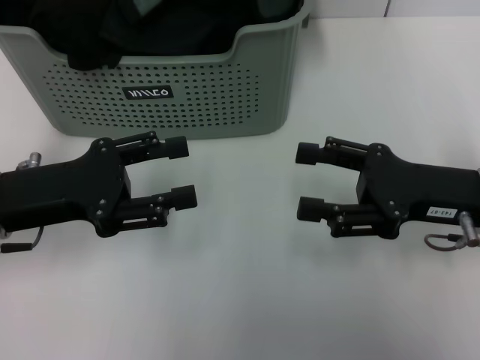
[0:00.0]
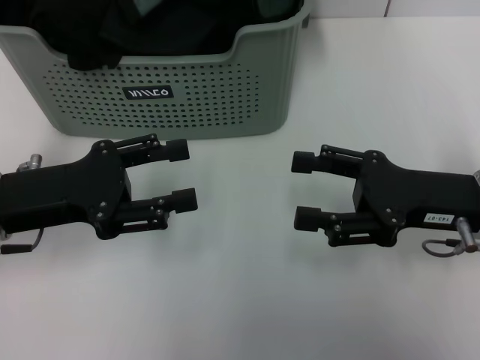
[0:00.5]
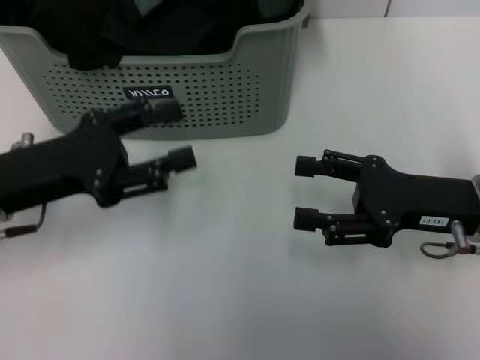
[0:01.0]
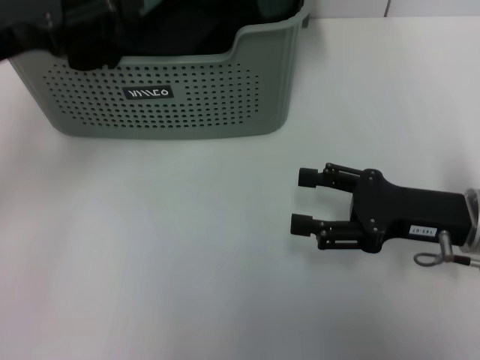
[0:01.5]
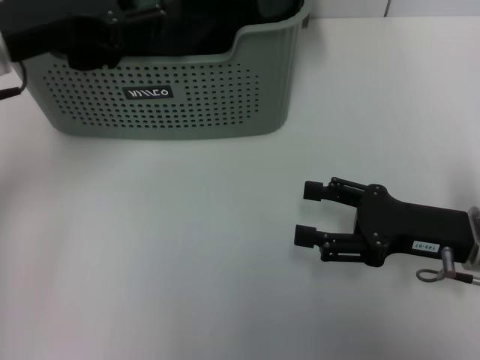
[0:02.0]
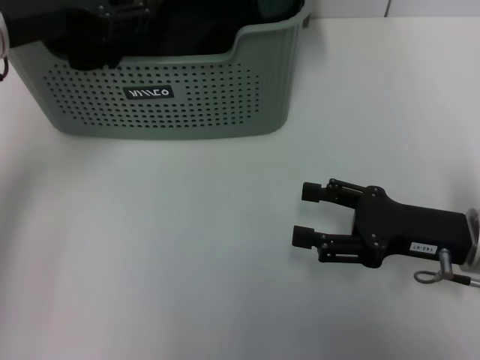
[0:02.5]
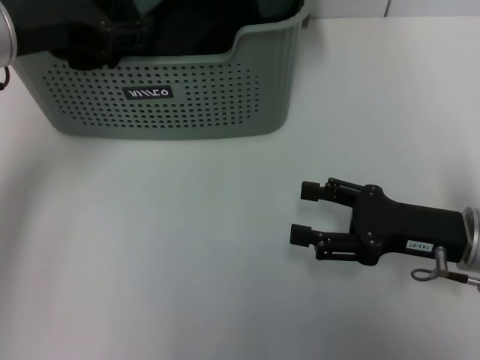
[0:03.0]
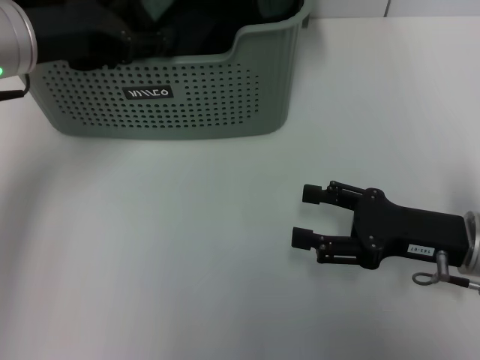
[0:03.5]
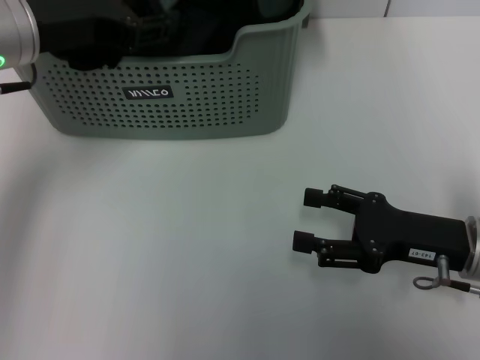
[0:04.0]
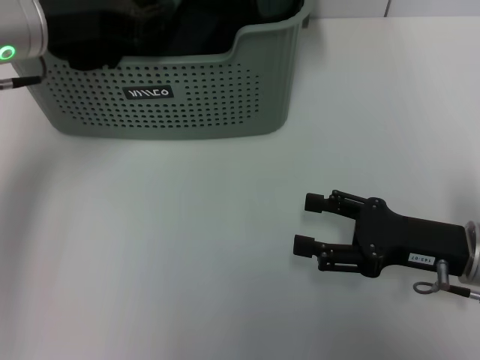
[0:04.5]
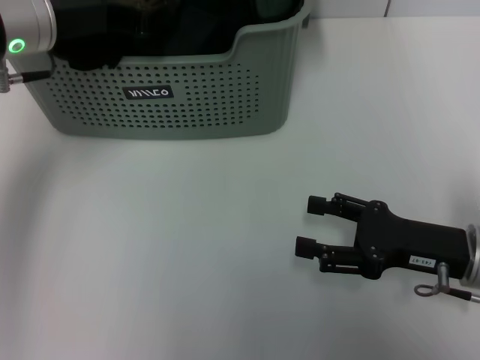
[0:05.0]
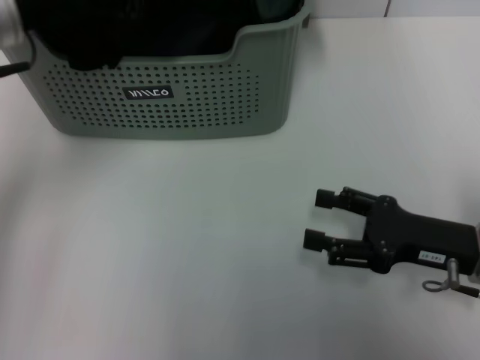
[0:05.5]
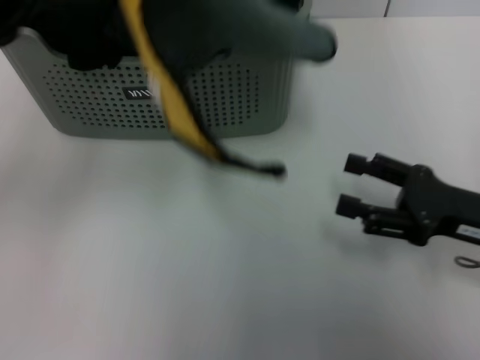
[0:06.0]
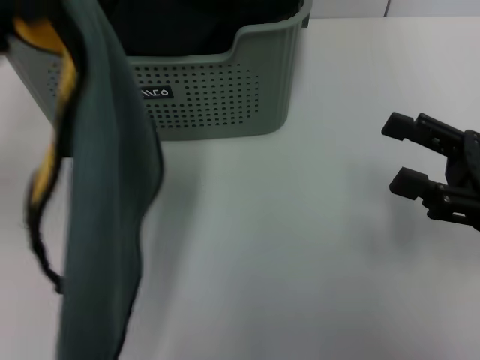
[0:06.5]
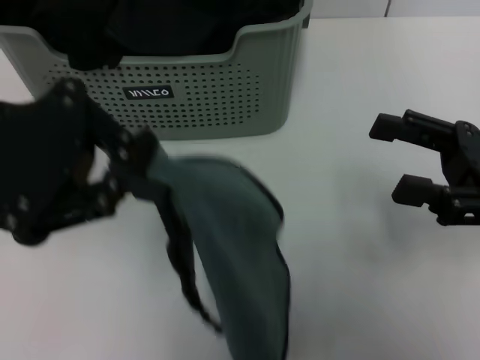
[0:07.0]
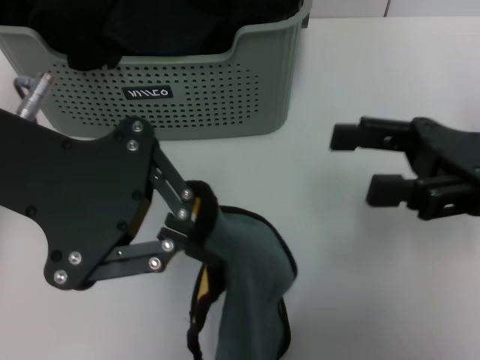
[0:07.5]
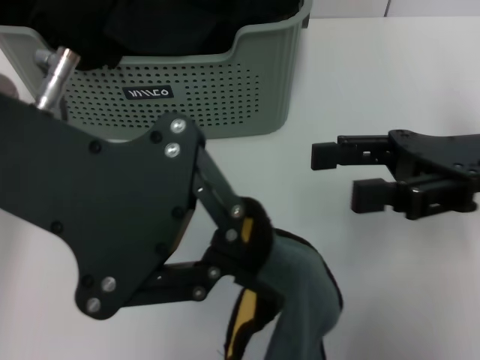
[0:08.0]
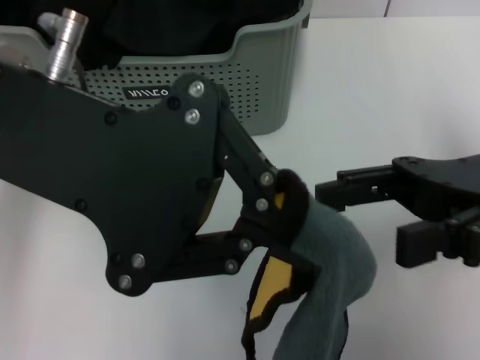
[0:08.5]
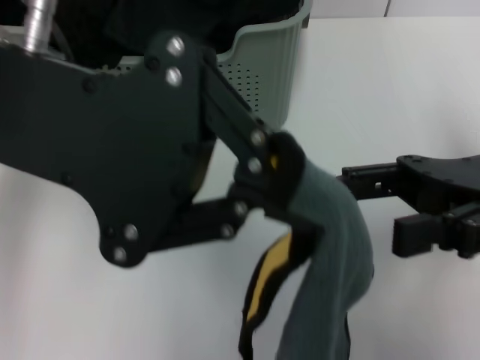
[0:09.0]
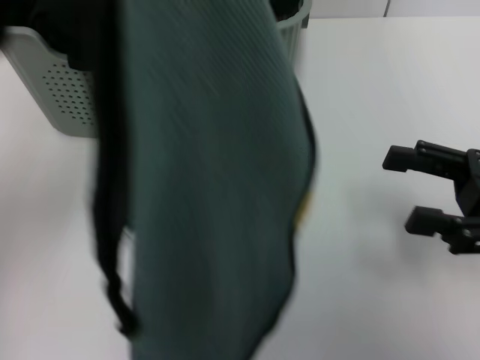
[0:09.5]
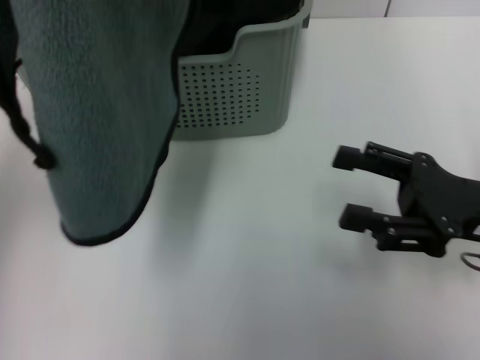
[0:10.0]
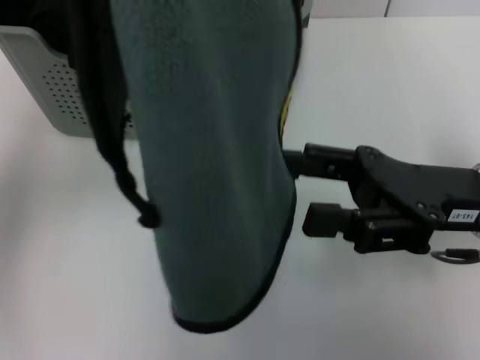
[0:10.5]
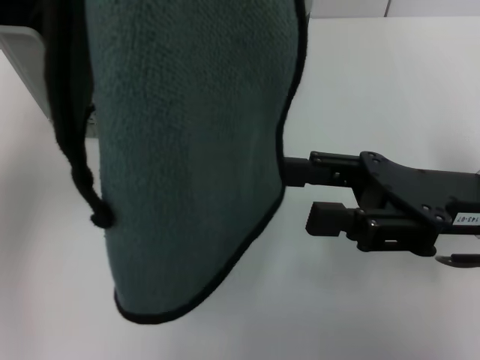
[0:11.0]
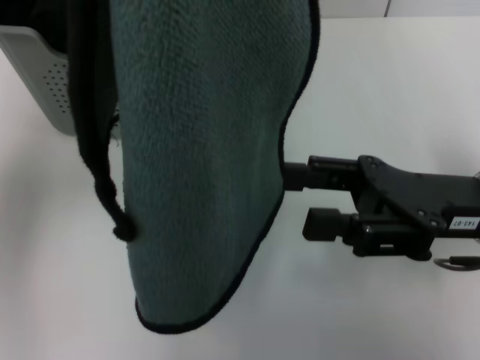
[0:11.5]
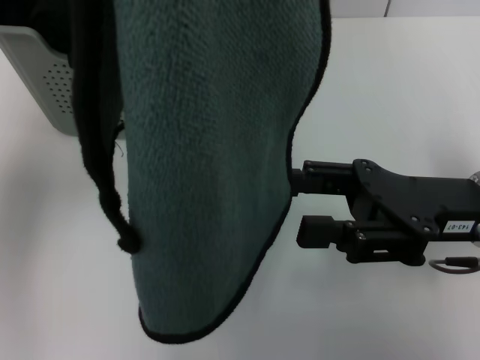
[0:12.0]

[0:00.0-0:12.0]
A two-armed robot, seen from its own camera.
Task of the whole recording: pick up the towel from the storage box and lay it flat on the table.
Step, 0:00.0 to 0:05.0: Pick up a towel with the left gripper.
0:00.0 to 0:02.0: The left gripper travels upward and forward by approximately 10 cm.
0:02.0 to 0:04.0: The grippers stay close to where they were, moving slightly.
0:04.0 to 0:06.0: The left gripper is displaced backward and to the left by approximately 10 cm, and closes.
0:06.0 to 0:08.0: The left gripper heads to the right, covering roughly 10 cm, while the right gripper moves upward, approximately 10 cm.
0:08.0 to 0:10.0: The left gripper goes some 5 cm to the left, while the right gripper is displaced downward by about 5 cm.
0:10.0 to 0:12.0: The right gripper changes place by some 5 cm.

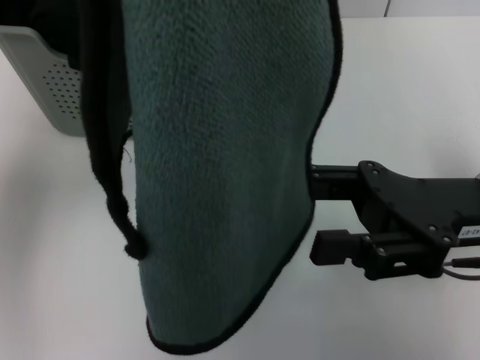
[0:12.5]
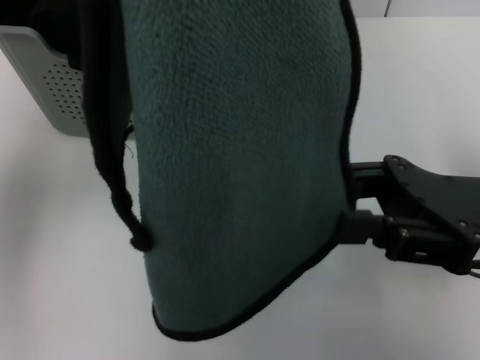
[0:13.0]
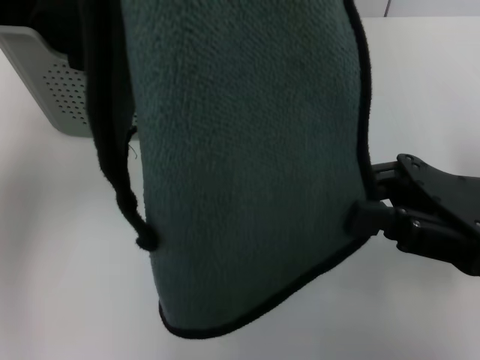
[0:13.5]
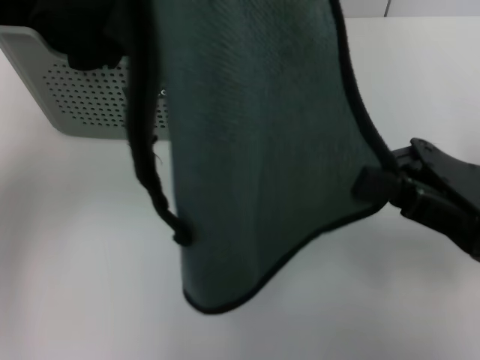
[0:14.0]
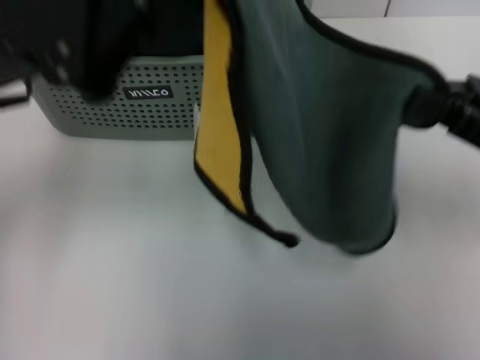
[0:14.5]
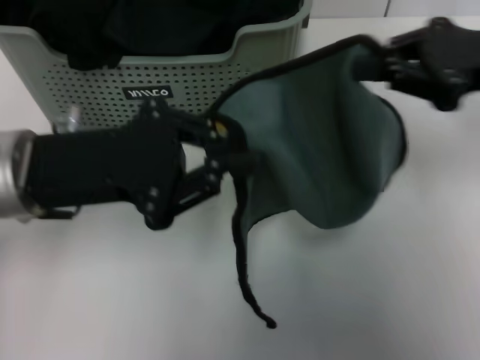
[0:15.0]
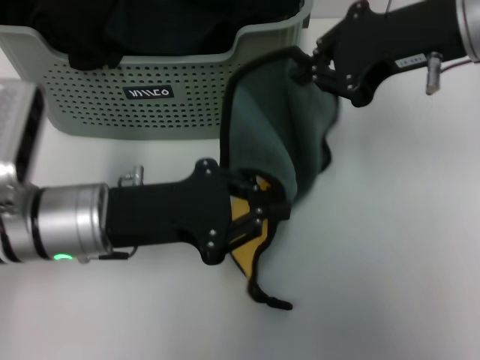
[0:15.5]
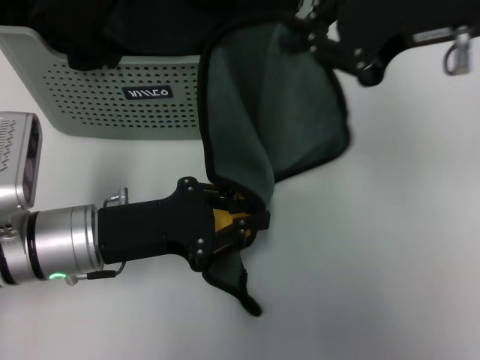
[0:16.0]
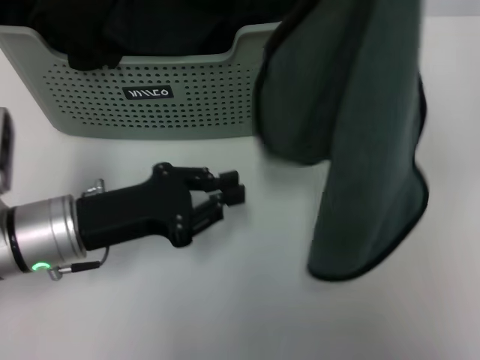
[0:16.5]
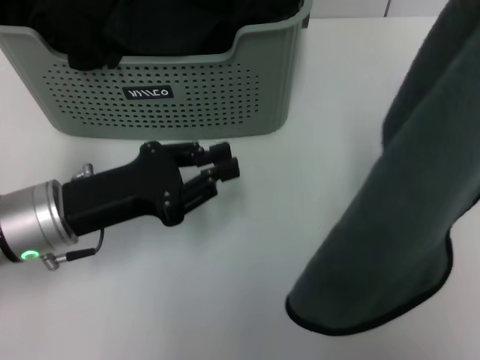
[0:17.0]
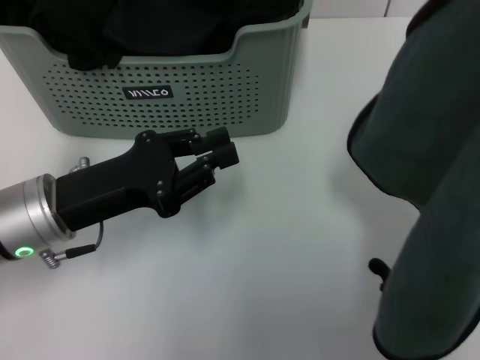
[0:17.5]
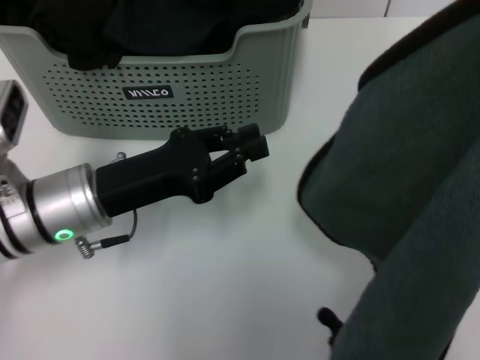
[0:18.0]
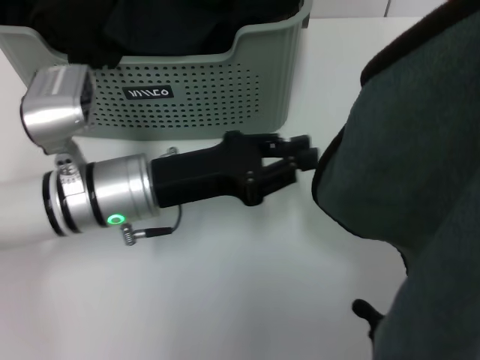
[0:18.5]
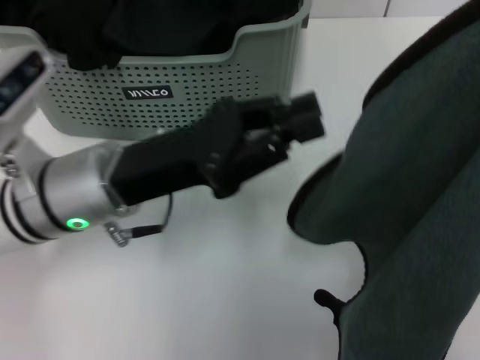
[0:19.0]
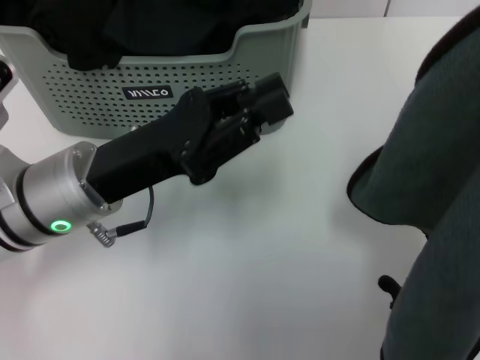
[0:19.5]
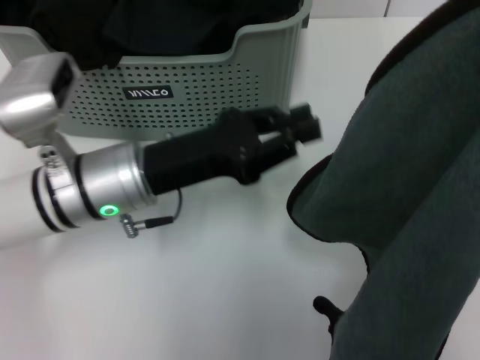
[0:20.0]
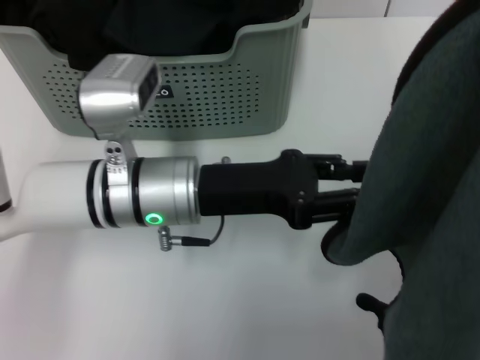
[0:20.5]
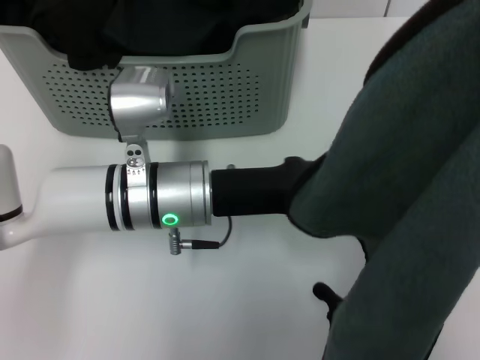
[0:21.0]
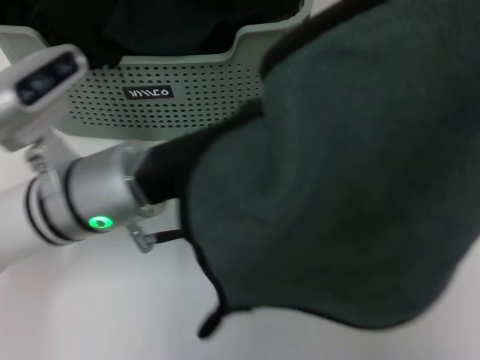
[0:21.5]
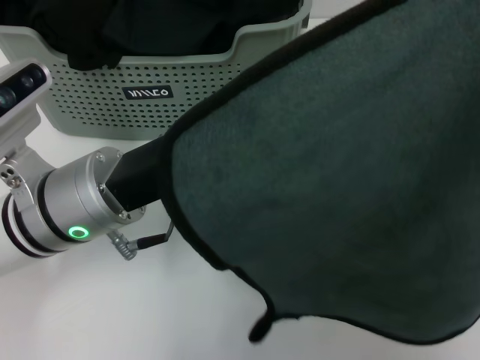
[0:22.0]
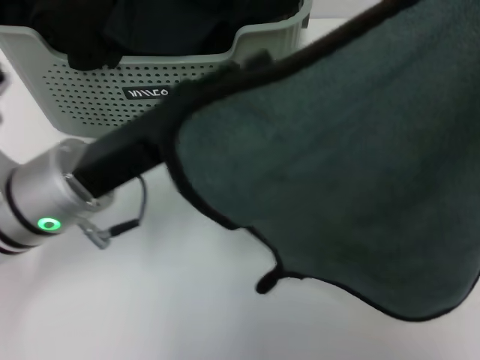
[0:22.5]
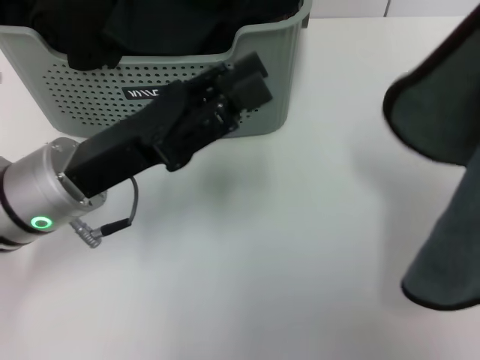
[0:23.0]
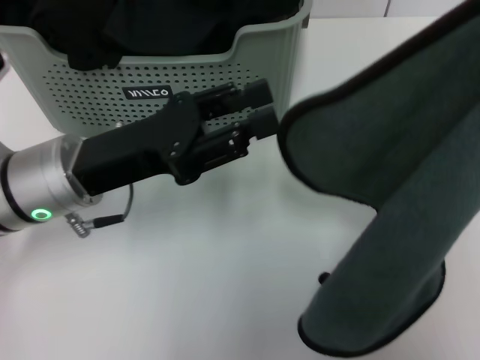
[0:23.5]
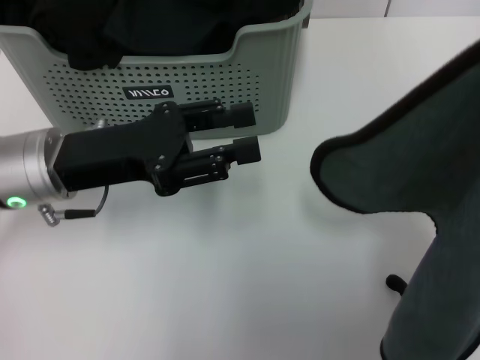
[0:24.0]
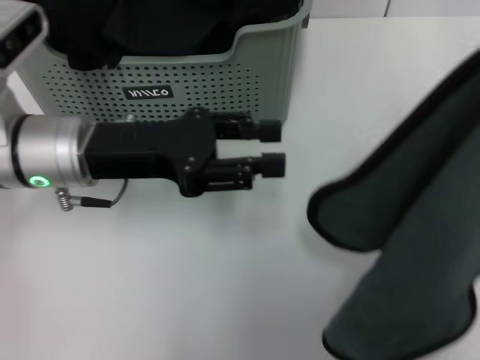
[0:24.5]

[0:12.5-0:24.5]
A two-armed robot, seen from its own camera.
Task of the whole recording: pick up the towel from the storage box and lay it flat on the table.
0:12.5 to 0:14.5: The right gripper moves to the right, approximately 5 cm, and closes. Meanwhile the left gripper goes approximately 5 cm downward.
0:14.5 to 0:16.5: The left gripper goes approximately 15 cm downward. The right gripper shifts about 20 cm upward.
0:16.5 to 0:18.5: The left gripper moves to the right, some 5 cm.
0:20.5 to 0:22.5: The left gripper travels to the left by about 5 cm. Meanwhile the right gripper moves to the right, about 5 cm.
0:22.5 to 0:24.5: The left gripper changes place by approximately 5 cm. Meanwhile the right gripper shifts approximately 10 cm upward and to the left.

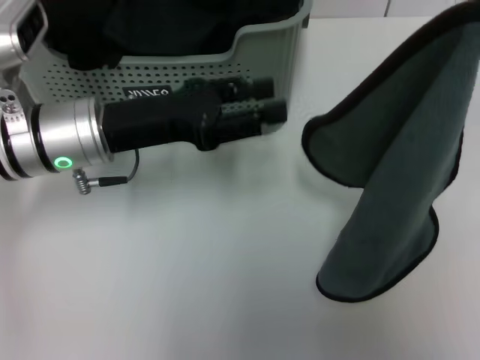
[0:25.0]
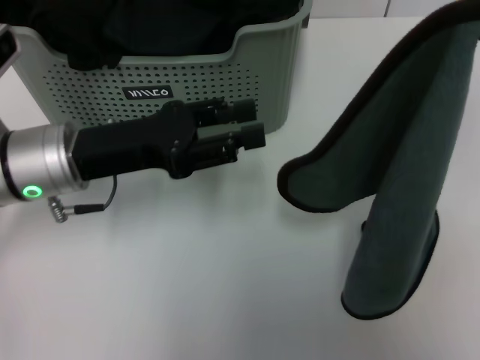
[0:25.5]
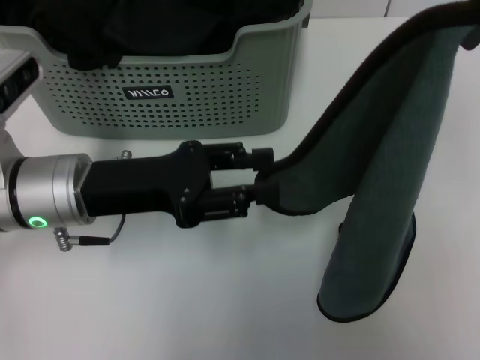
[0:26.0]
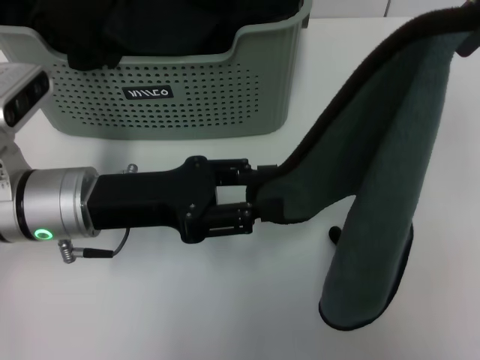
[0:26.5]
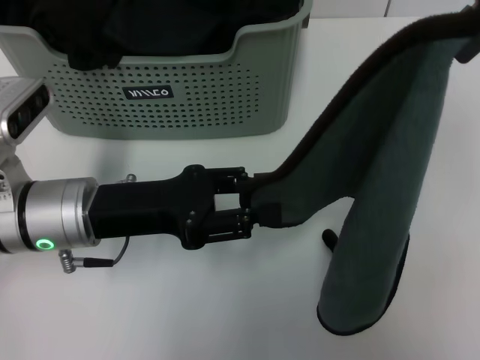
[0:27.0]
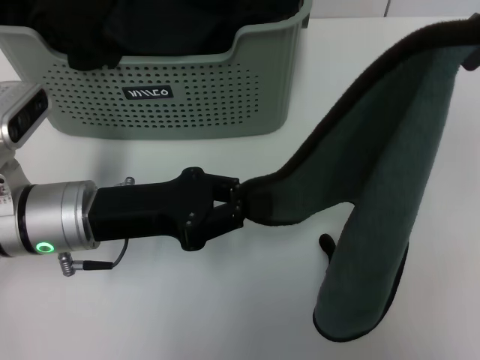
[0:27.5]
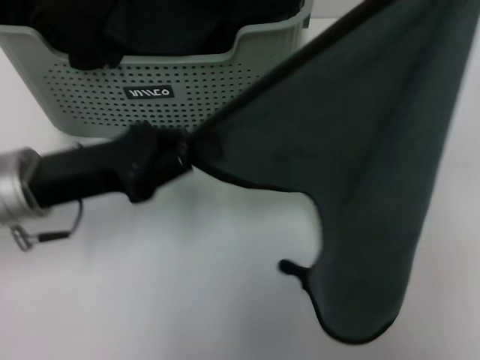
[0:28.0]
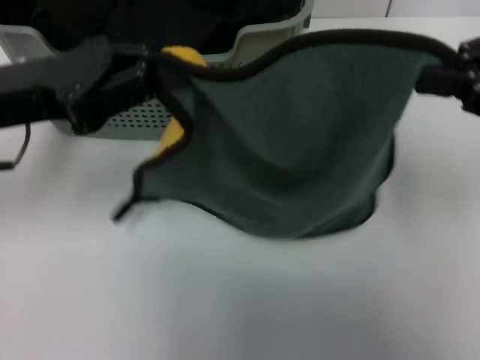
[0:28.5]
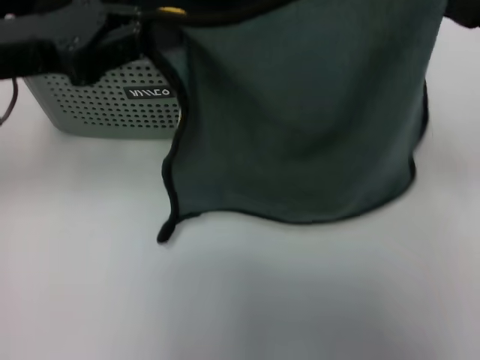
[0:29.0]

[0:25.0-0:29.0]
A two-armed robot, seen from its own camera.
Task of the whole recording: pick up the towel from the storage box and lay it flat on the table.
0:25.0 to 0:27.0: The left gripper shifts approximately 5 cm backward.
0:27.0 to 0:29.0: The right gripper goes roughly 25 cm downward and to the right; the left gripper shifts some 15 cm upward and to the left, and closes its fingers.
